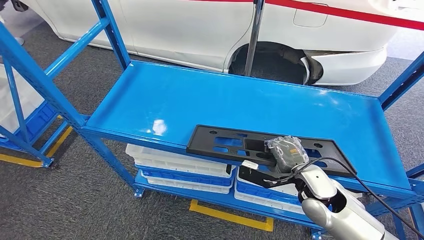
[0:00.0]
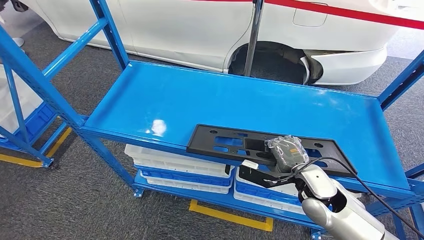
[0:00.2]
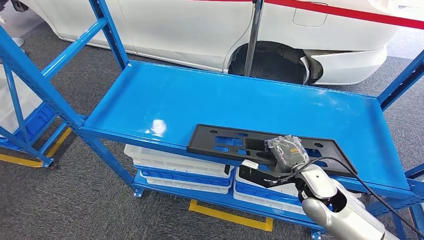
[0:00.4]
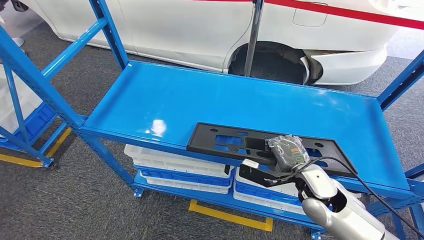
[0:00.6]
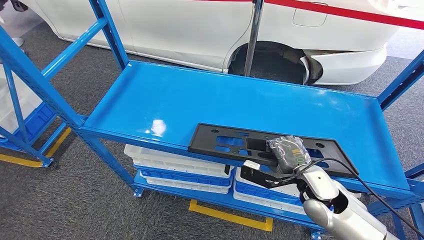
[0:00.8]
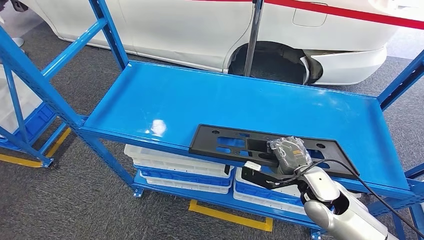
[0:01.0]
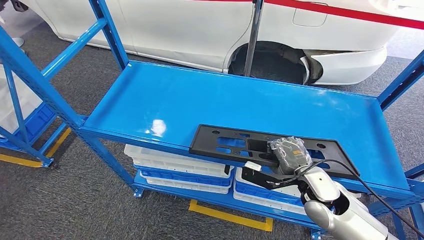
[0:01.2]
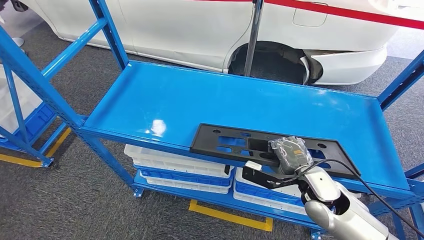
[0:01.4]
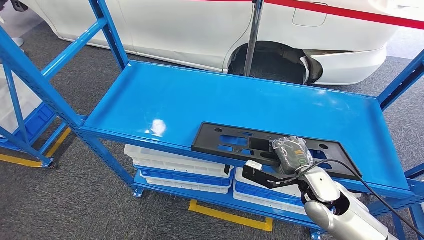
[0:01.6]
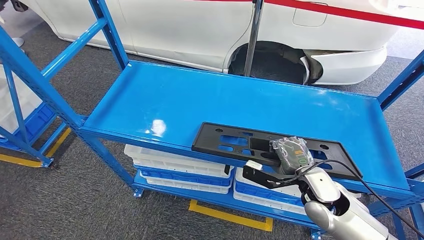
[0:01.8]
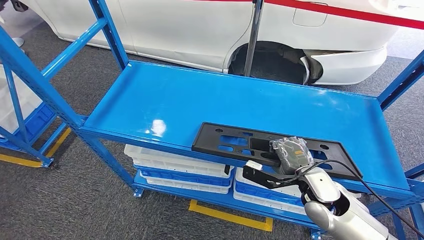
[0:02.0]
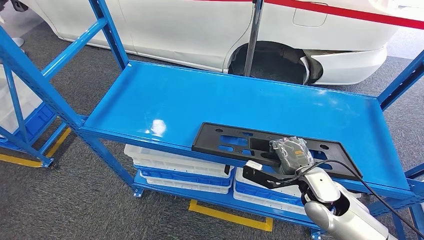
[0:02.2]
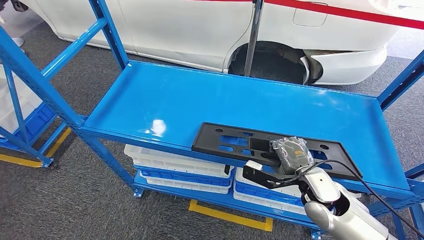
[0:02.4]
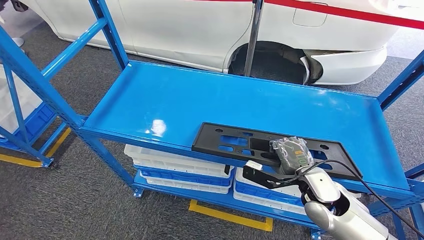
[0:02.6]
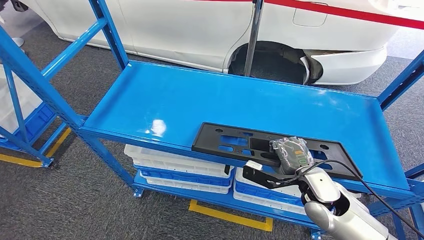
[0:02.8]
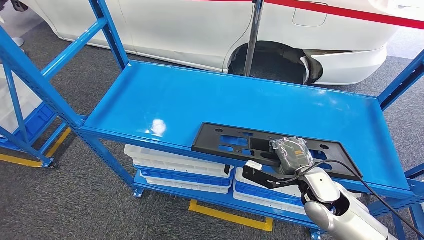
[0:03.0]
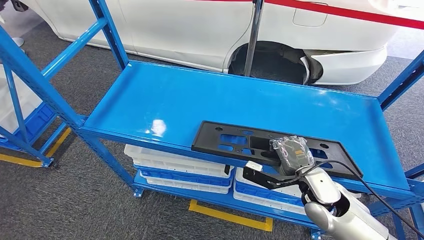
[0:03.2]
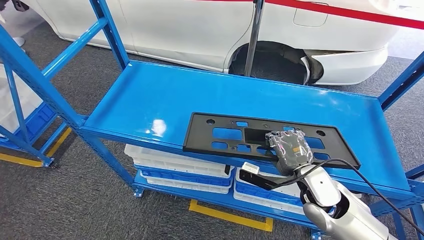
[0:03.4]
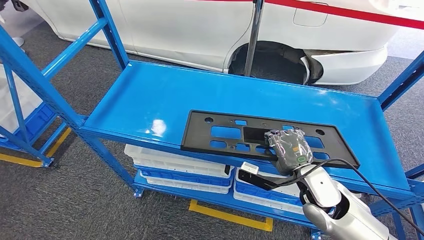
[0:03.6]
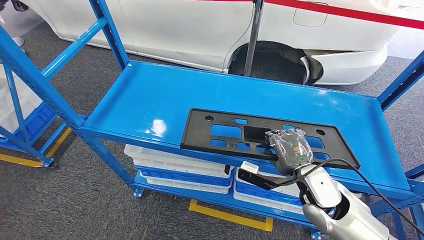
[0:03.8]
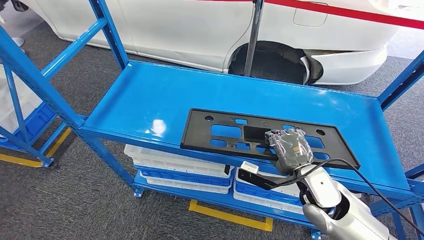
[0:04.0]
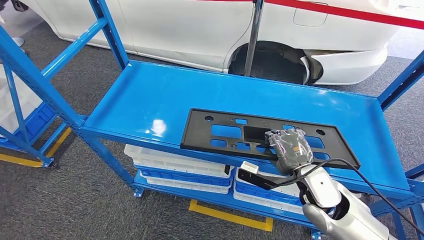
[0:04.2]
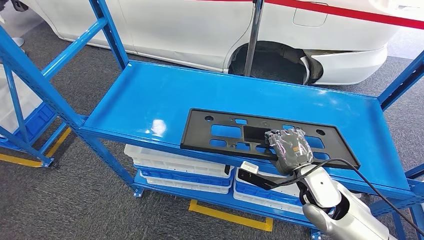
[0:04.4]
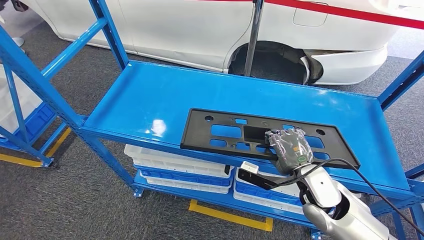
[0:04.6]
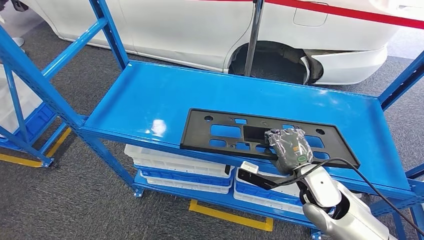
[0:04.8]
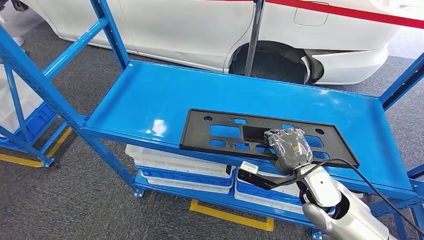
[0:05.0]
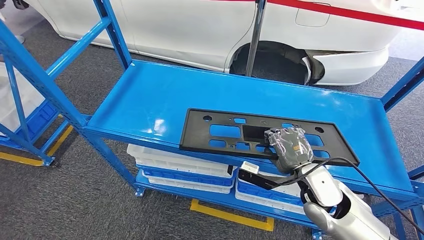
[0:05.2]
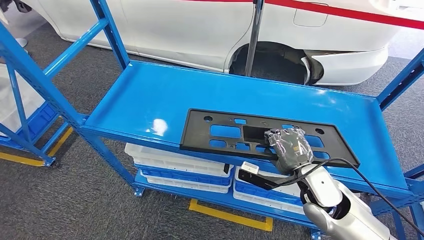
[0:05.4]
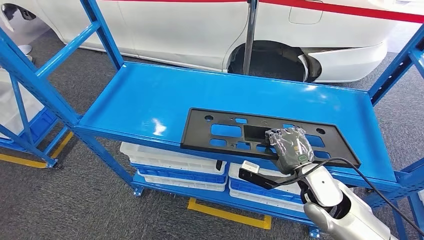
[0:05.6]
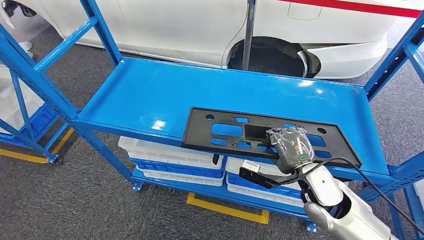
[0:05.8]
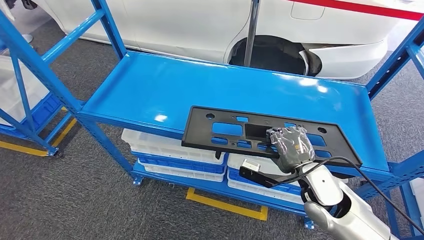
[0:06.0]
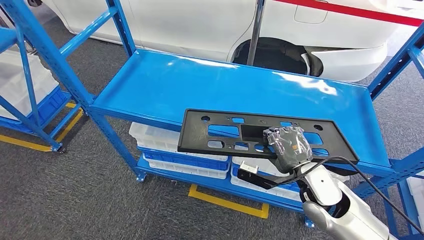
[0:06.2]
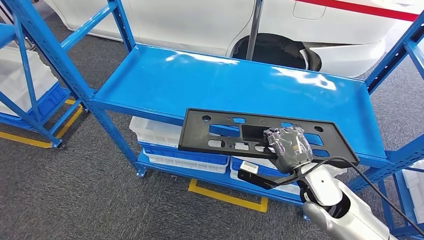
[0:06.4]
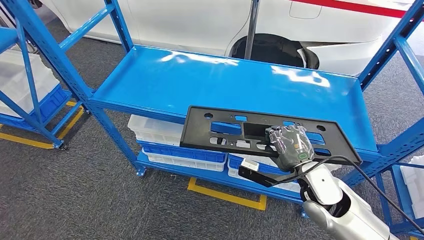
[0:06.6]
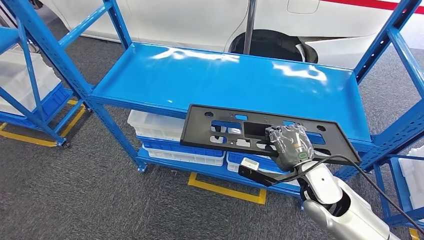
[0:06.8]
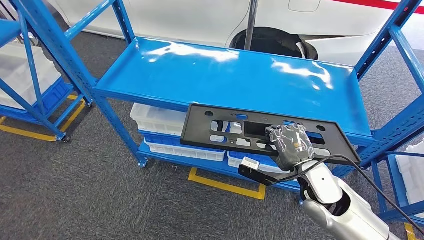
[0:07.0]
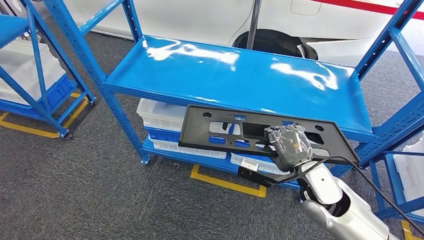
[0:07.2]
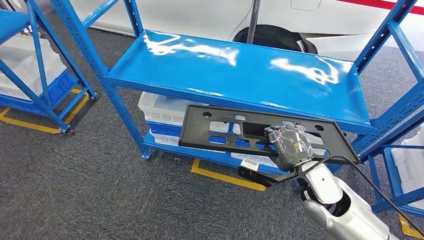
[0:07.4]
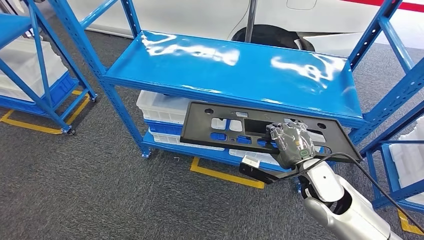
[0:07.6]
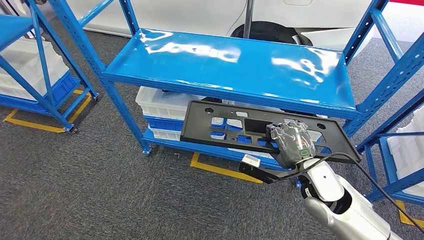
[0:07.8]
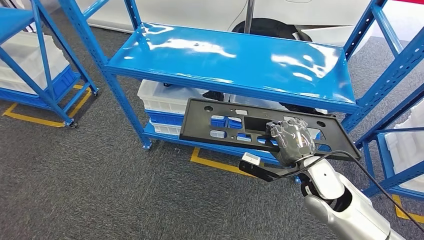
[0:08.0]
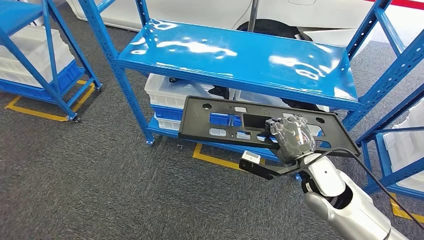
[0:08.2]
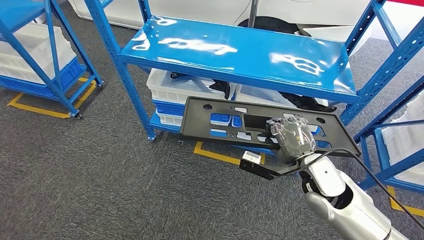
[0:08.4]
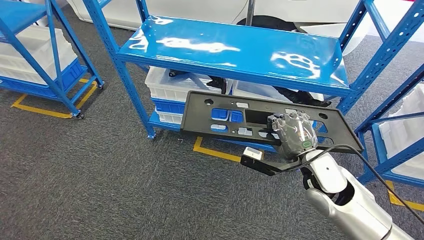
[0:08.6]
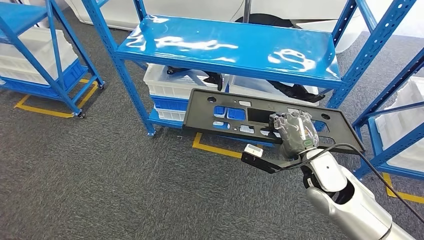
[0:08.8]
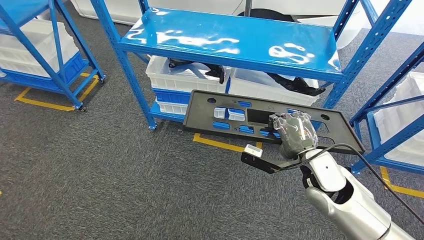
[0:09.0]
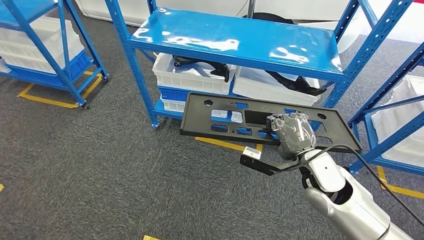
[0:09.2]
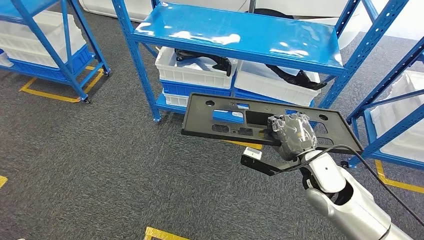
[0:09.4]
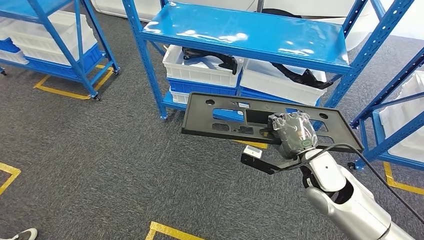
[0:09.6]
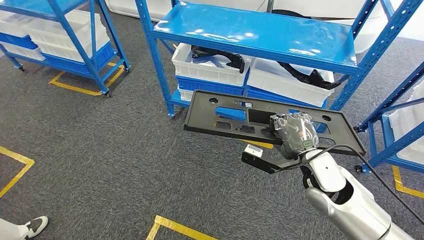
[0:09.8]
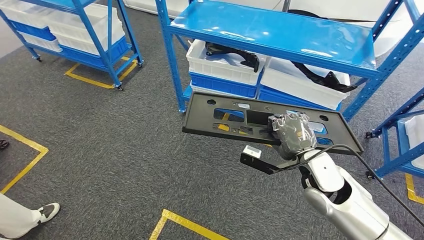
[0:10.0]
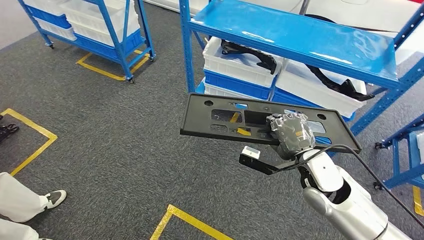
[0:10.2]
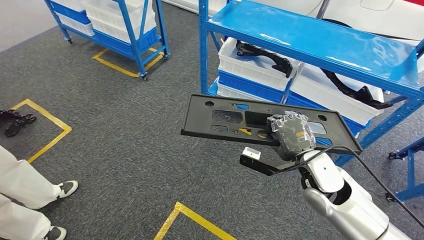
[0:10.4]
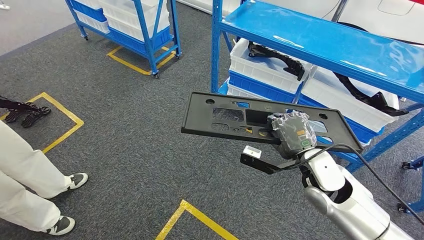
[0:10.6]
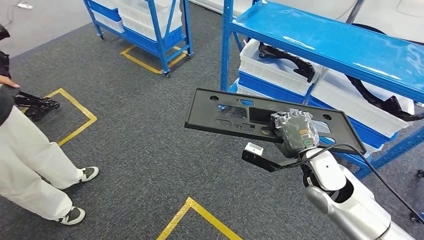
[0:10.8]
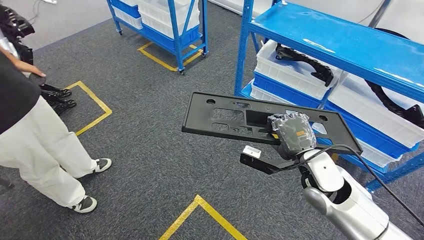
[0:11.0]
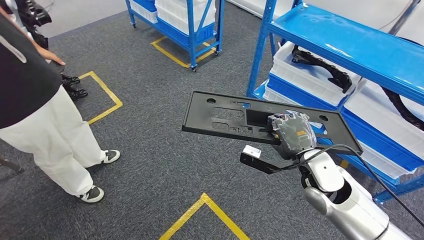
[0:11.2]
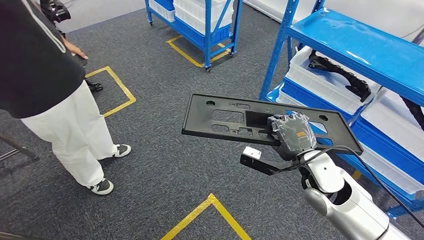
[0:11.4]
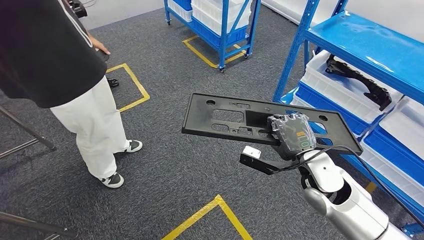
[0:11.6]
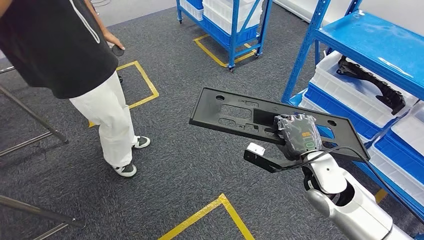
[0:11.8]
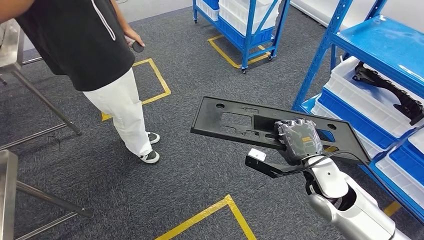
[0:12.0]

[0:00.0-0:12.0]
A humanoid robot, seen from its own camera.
Step, 0:00.0 to 0:07.6: Pick up the large material from the shelf.
0:00.0 to 0:01.6: The hands stay close to where they were, moving slightly.
0:01.6 to 0:03.0: Neither hand changes place.
0:03.0 to 0:04.4: The hands move only a little.

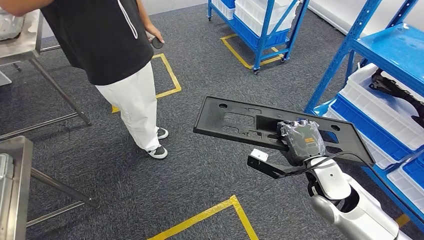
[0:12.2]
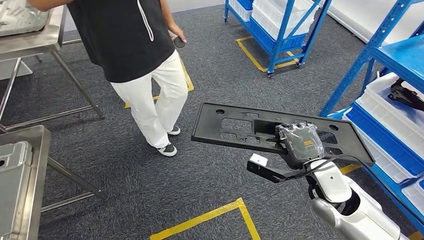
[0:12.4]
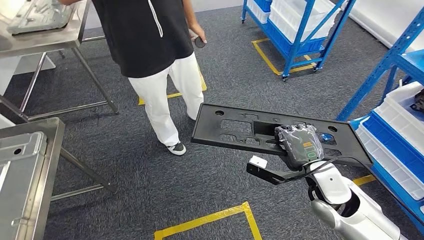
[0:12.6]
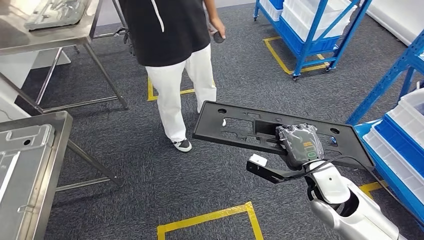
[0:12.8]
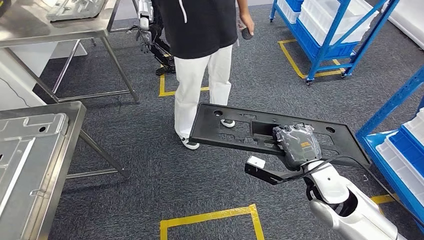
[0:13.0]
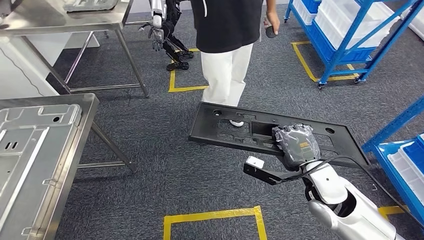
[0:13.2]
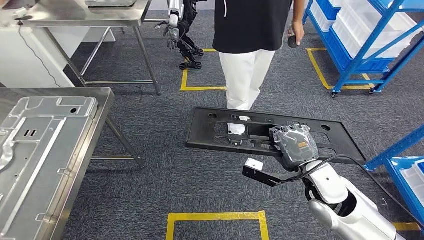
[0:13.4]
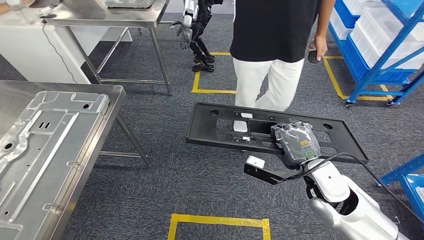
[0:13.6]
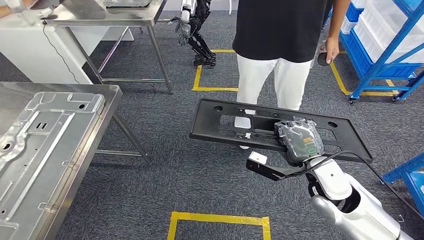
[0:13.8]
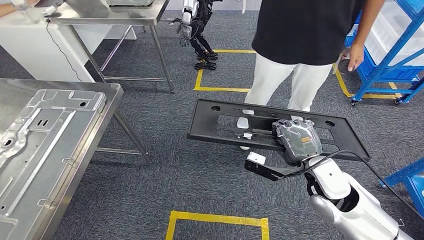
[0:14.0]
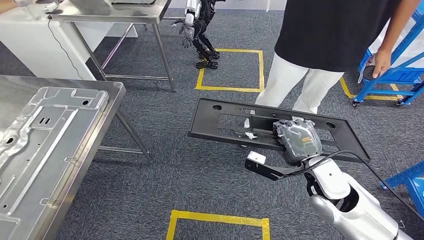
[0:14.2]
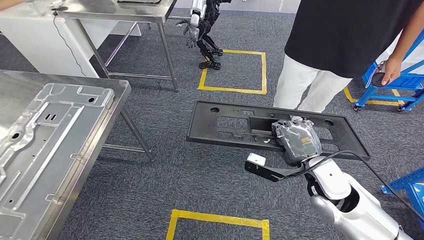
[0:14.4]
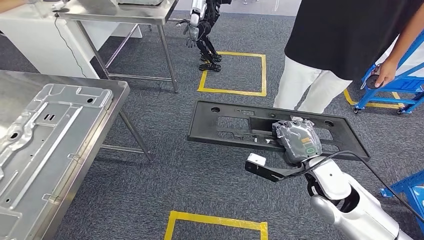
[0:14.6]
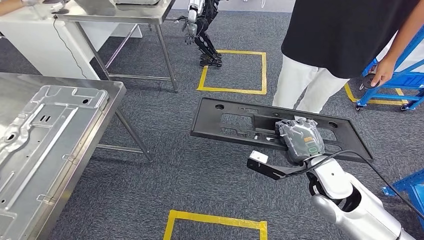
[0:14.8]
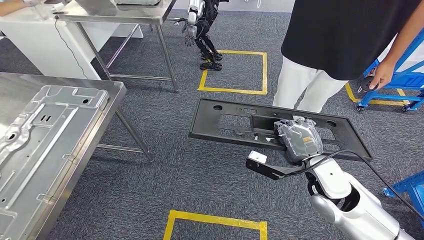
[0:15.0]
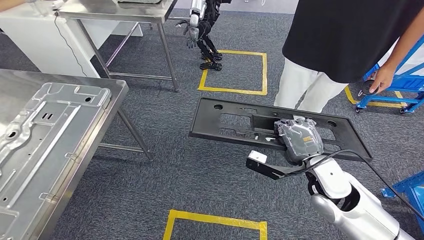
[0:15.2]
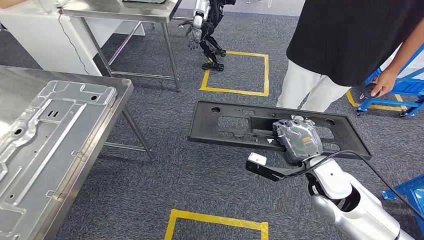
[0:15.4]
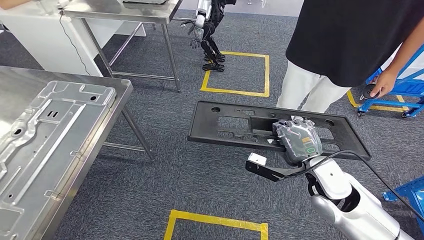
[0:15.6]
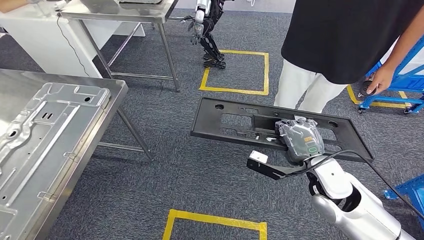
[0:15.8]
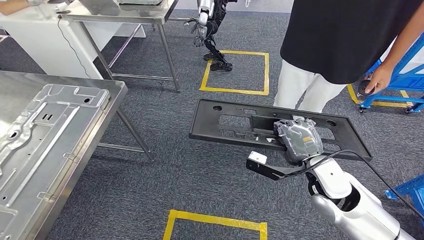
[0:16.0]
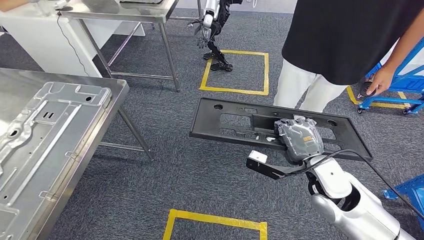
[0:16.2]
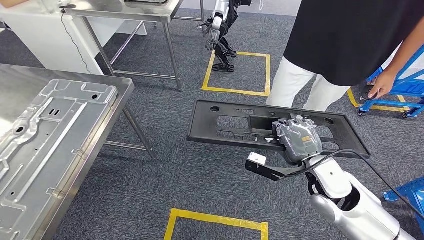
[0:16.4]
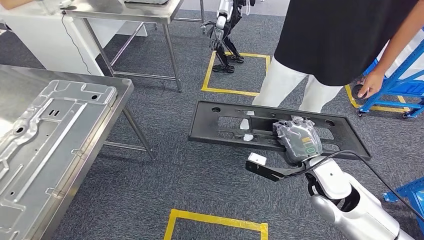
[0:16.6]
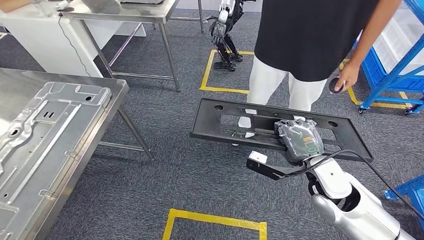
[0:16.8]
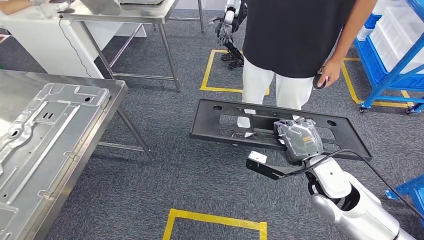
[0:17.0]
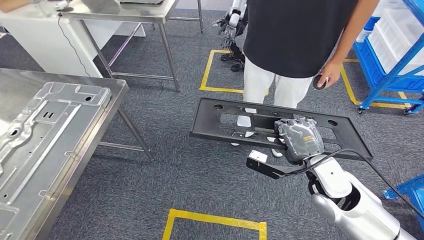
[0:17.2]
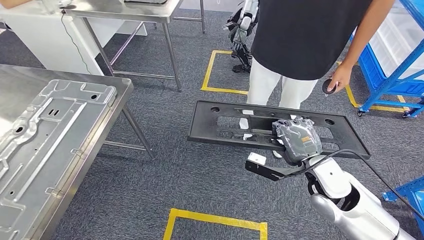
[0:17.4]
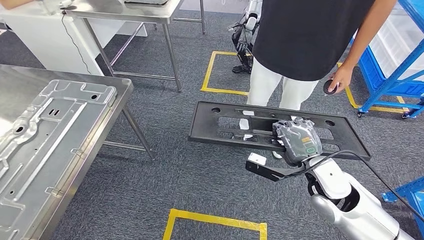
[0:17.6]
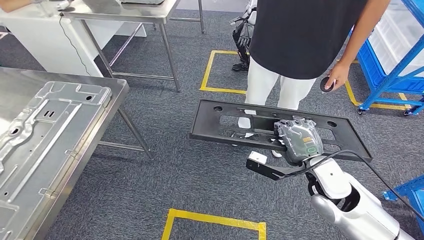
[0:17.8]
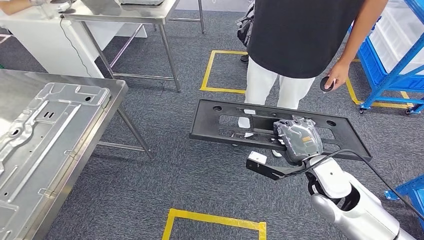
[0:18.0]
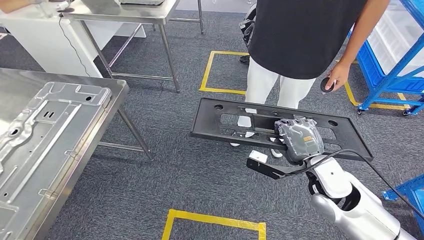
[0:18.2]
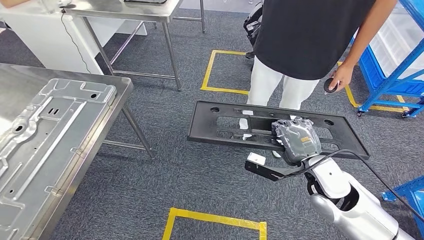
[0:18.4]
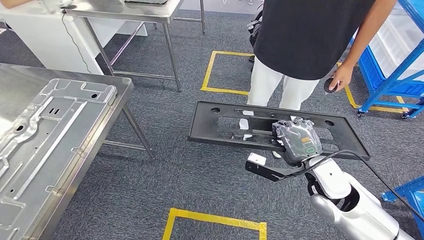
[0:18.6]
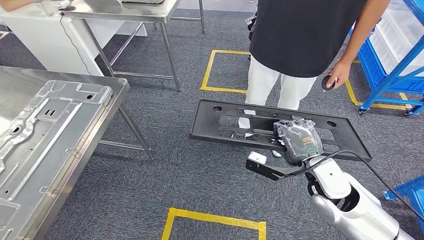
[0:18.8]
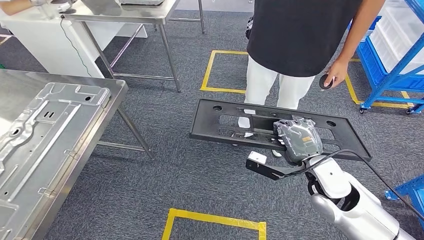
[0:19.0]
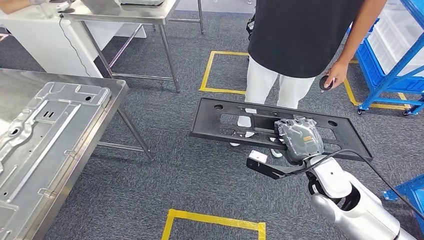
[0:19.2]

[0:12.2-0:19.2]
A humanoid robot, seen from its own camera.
0:17.8 to 0:19.2: Both hands stay put.
